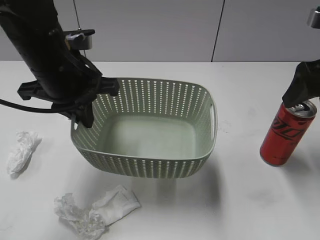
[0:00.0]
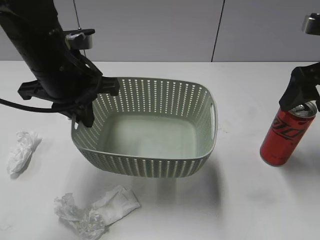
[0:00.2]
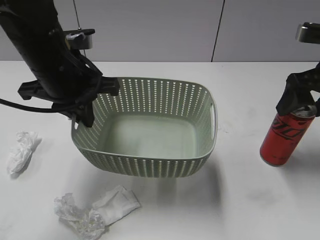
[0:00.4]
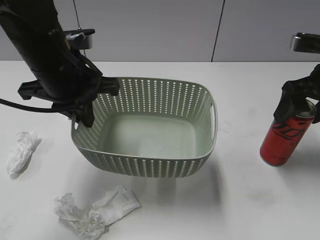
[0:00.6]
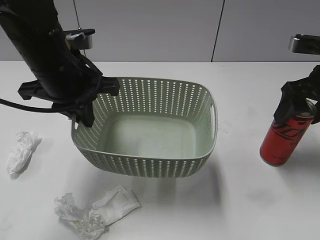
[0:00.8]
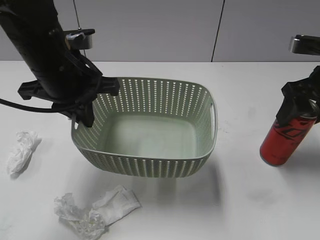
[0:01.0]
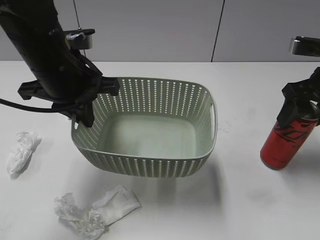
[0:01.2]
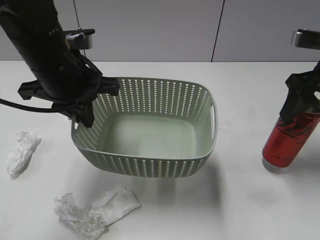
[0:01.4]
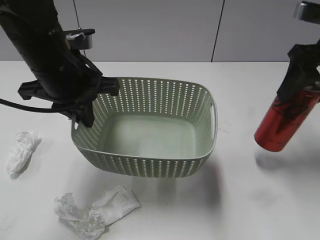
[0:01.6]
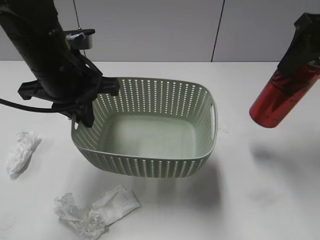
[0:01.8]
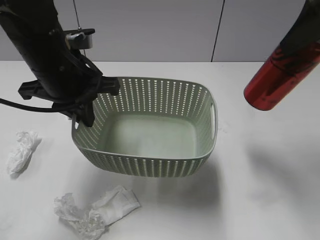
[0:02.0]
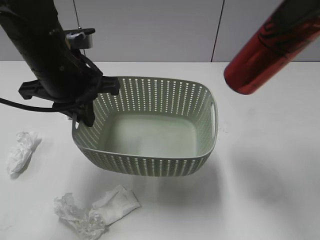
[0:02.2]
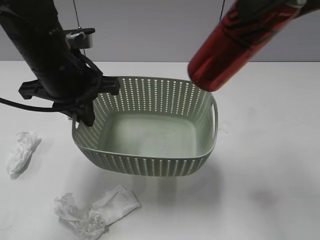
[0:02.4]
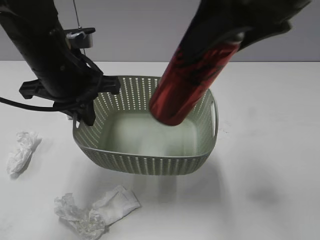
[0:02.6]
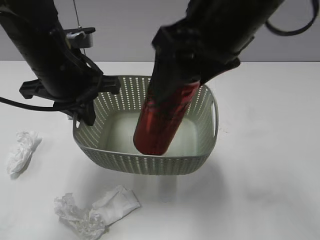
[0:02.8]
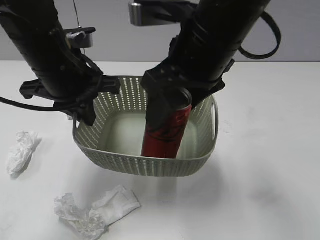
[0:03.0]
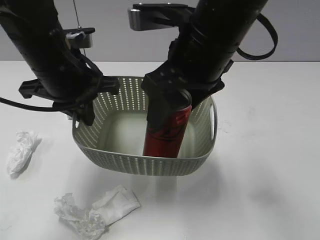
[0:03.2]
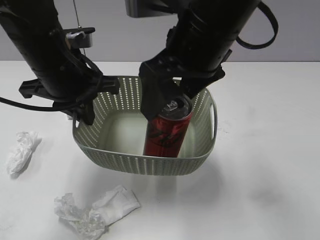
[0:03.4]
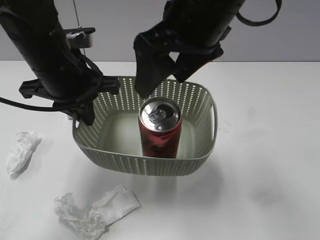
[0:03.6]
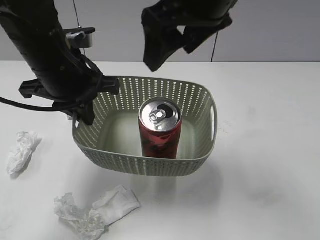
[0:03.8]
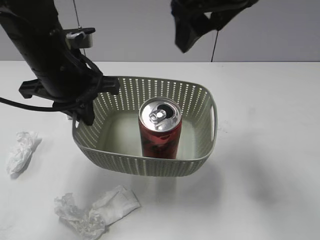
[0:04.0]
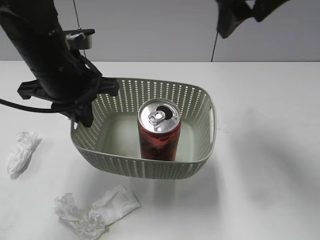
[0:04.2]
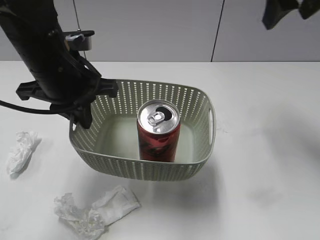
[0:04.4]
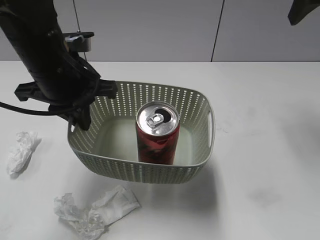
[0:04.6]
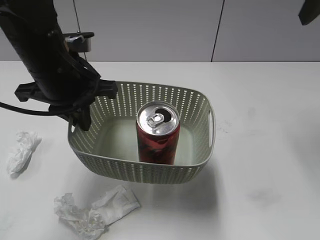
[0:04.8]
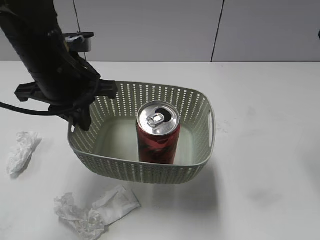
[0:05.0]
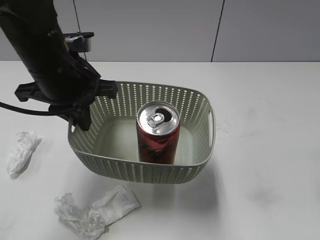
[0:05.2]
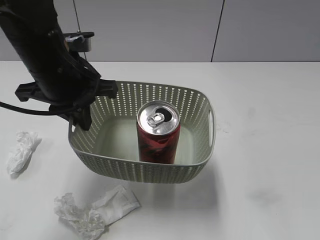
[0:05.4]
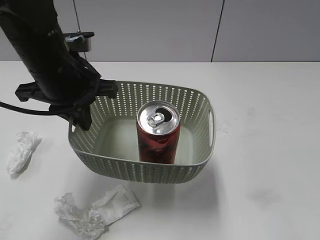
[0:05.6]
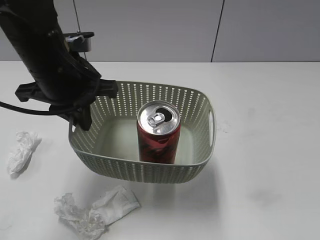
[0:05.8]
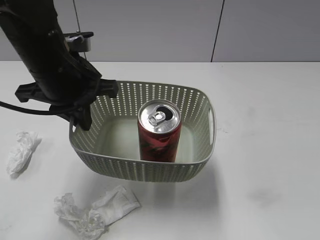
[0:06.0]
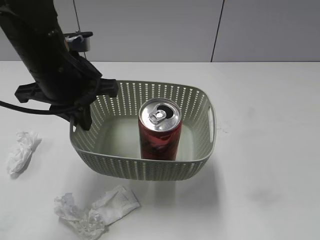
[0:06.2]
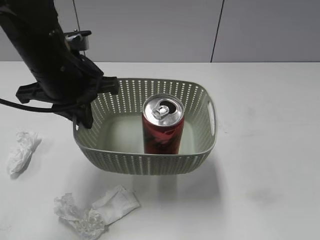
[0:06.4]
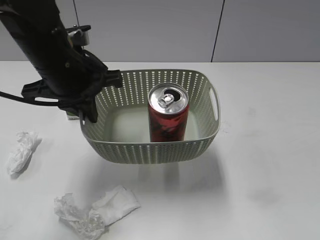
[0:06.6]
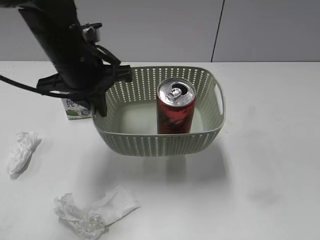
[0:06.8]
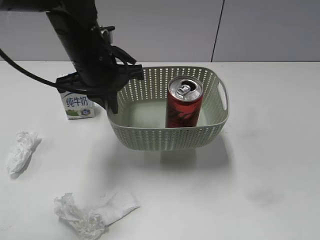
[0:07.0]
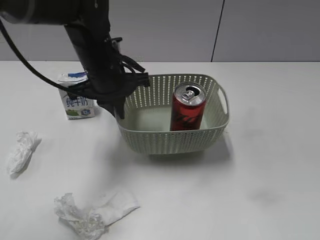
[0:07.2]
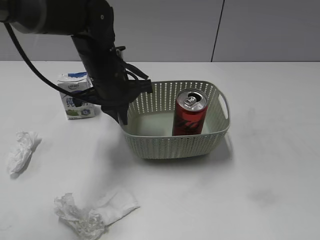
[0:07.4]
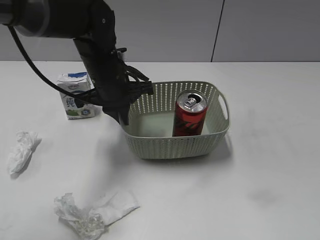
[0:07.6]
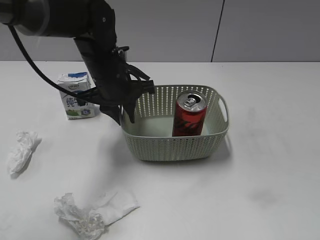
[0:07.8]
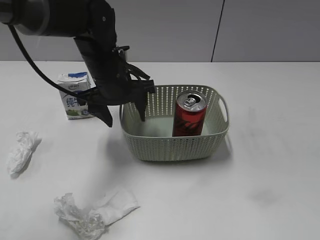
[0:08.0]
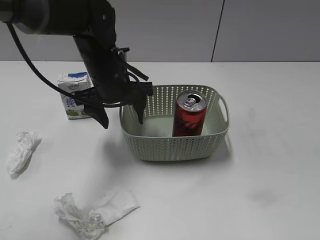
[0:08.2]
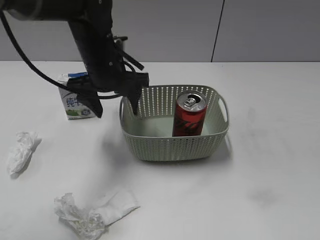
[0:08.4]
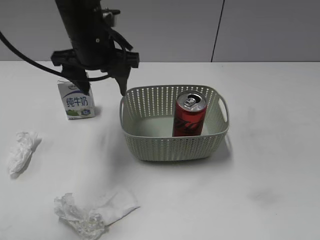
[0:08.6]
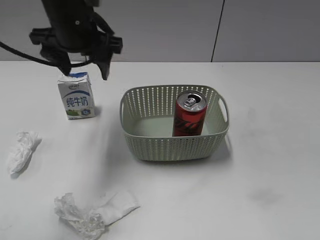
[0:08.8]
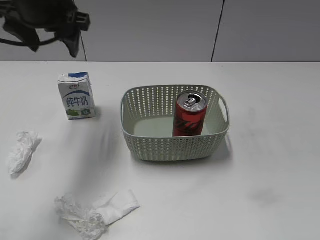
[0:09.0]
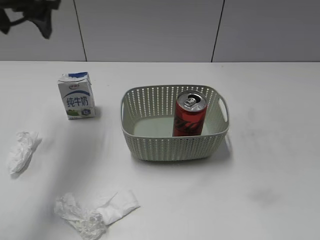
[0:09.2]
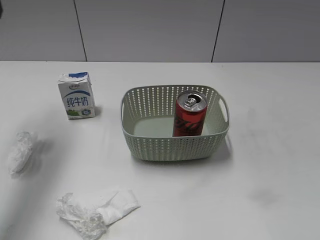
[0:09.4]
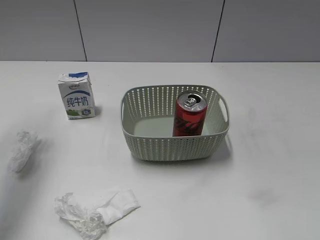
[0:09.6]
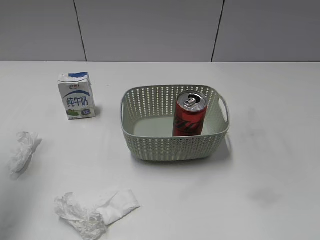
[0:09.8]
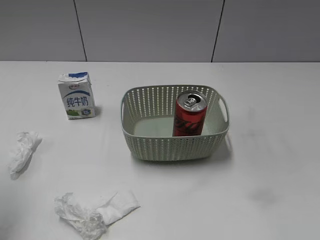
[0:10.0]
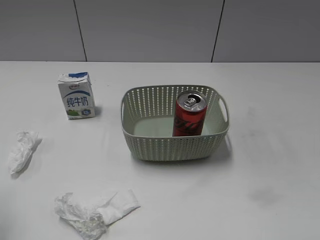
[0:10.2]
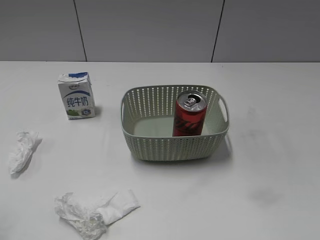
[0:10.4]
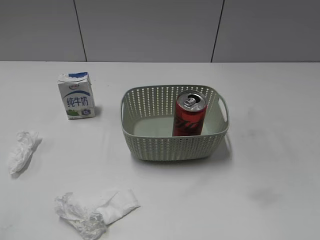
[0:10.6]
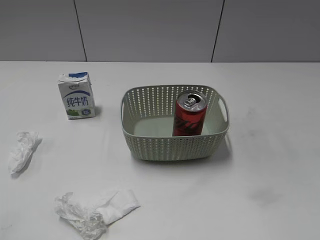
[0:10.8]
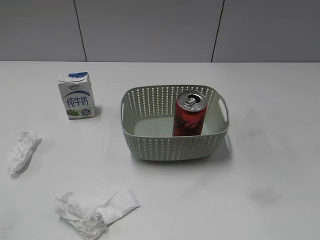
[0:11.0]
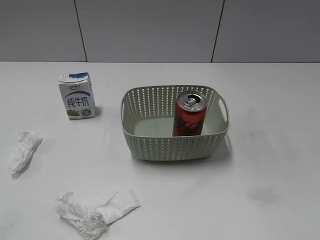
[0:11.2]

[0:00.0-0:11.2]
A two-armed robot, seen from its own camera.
Step, 0:01.2 to 0:03.4: Place the cola can in the basket with right gripper.
Step, 0:03.6 to 0:07.8: Place the basket on the table with left gripper.
0:00.0 to 0:01.6: The right gripper closes its fingers.
0:01.6 to 0:03.2: The right gripper shifts roughly 20 cm to the left.
0:03.2 to 0:04.8: The right gripper moves to the right and upward, about 20 cm, and opens up.
0:04.8 to 0:06.4: The right gripper moves backward, approximately 30 cm.
0:06.4 to 0:08.0: The left gripper shifts some 10 cm forward, downward and to the right, and opens.
0:08.0 to 0:09.6: The left gripper shifts approximately 30 cm to the left and upward.
0:09.6 to 0:11.2: The left gripper is displaced backward by some 30 cm.

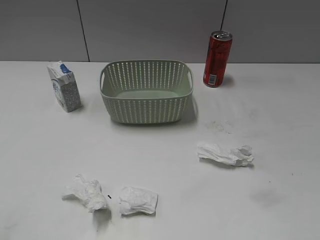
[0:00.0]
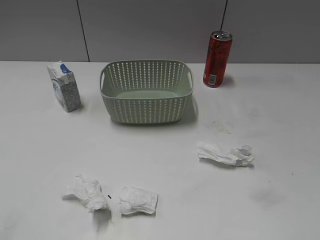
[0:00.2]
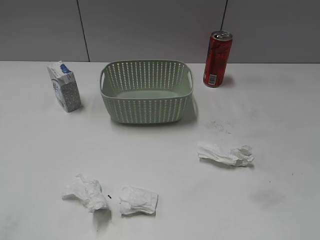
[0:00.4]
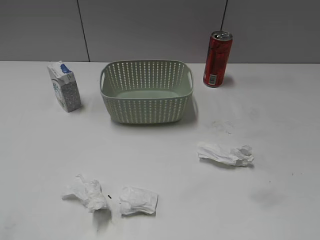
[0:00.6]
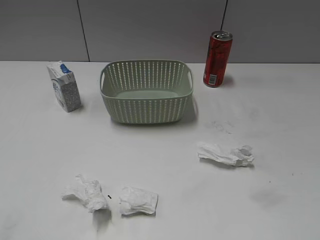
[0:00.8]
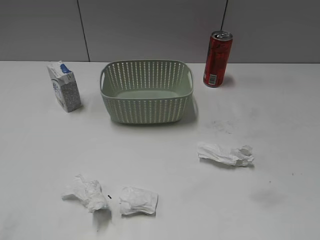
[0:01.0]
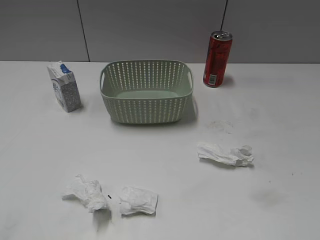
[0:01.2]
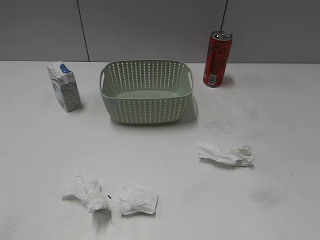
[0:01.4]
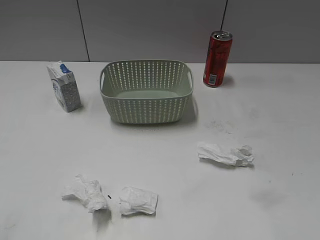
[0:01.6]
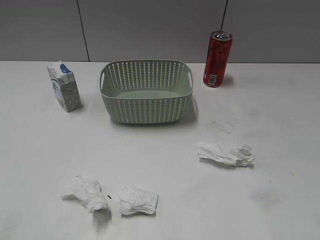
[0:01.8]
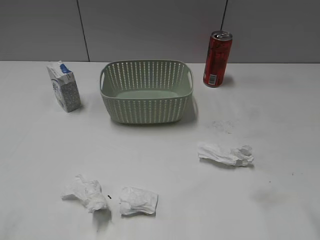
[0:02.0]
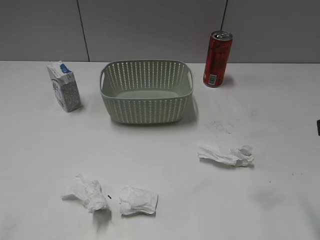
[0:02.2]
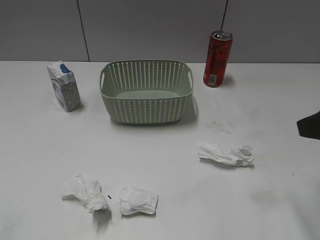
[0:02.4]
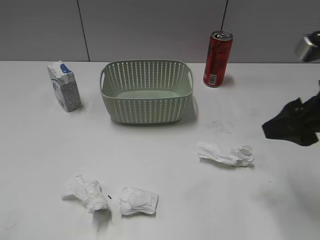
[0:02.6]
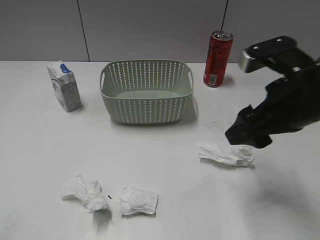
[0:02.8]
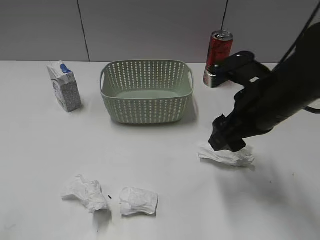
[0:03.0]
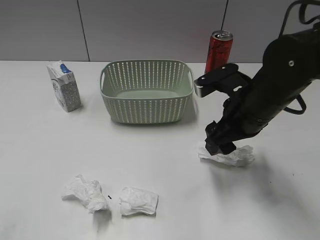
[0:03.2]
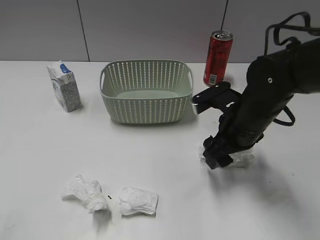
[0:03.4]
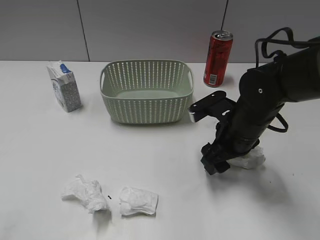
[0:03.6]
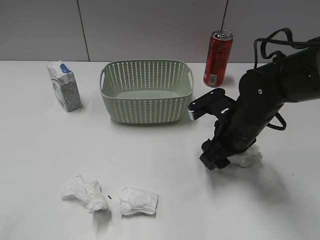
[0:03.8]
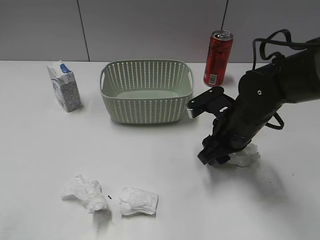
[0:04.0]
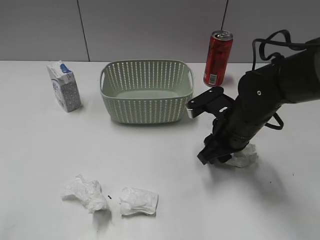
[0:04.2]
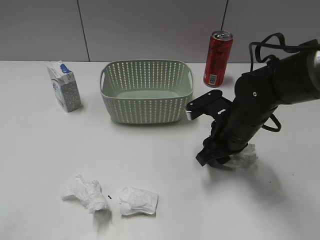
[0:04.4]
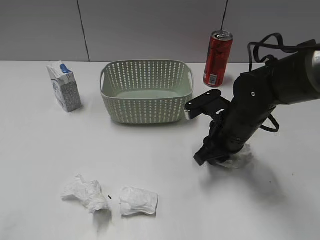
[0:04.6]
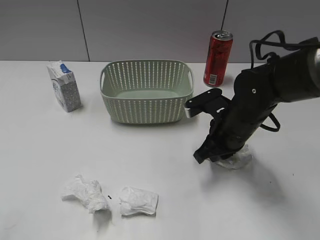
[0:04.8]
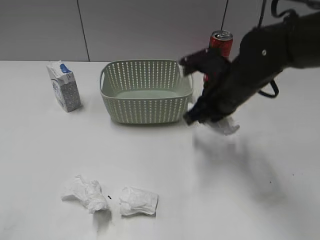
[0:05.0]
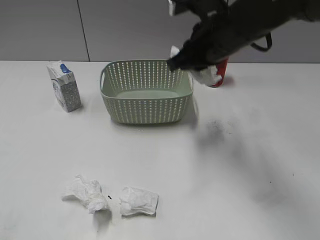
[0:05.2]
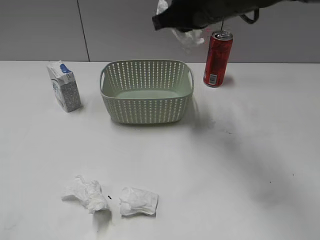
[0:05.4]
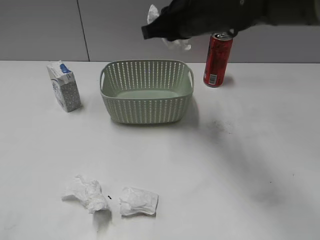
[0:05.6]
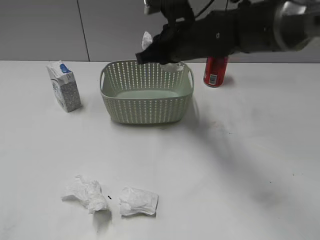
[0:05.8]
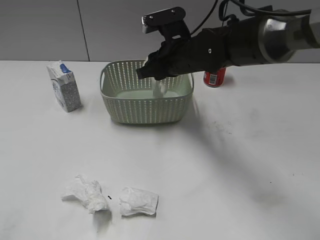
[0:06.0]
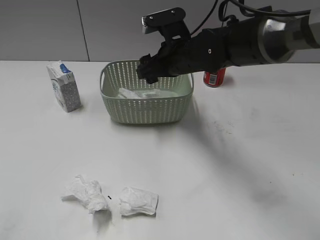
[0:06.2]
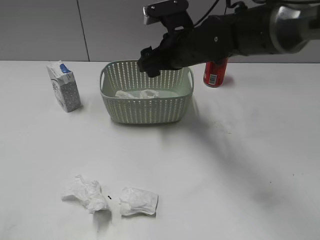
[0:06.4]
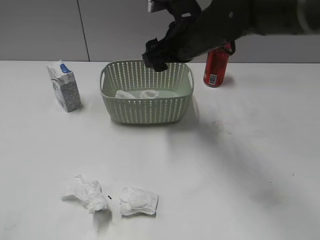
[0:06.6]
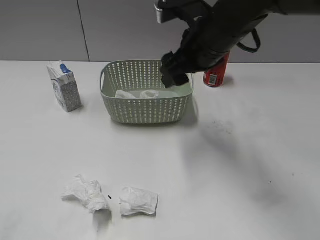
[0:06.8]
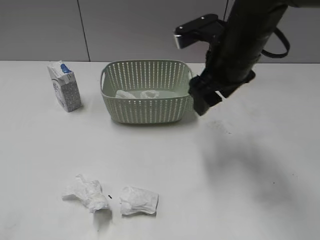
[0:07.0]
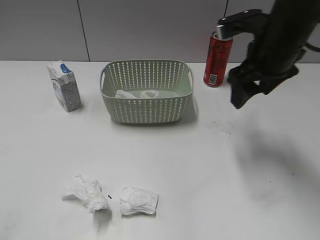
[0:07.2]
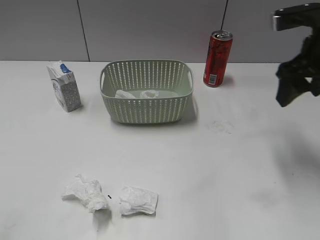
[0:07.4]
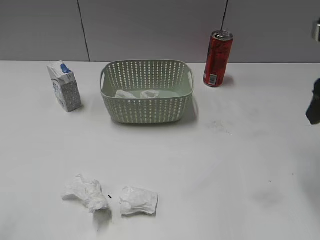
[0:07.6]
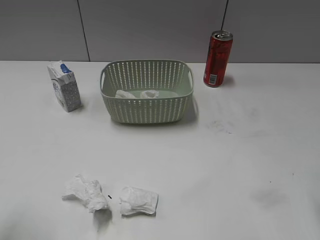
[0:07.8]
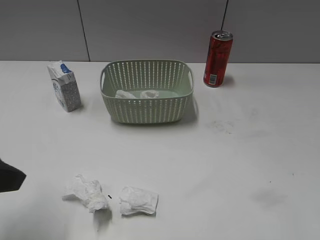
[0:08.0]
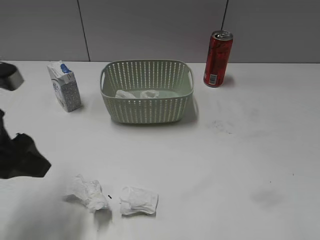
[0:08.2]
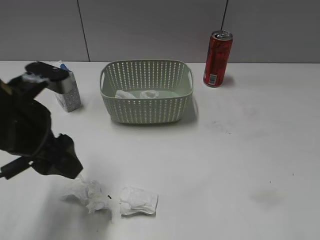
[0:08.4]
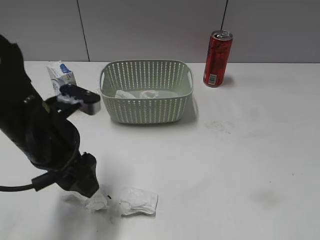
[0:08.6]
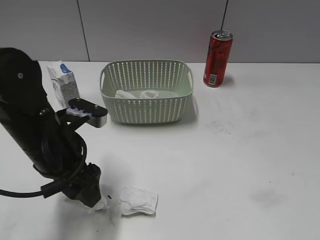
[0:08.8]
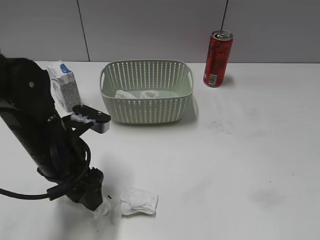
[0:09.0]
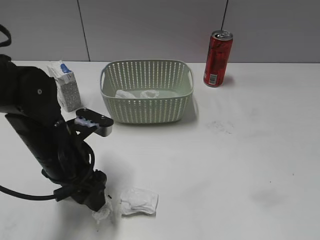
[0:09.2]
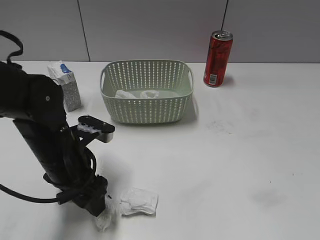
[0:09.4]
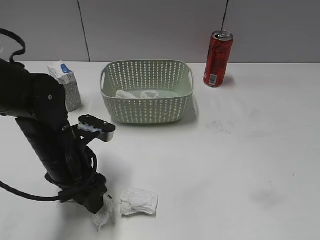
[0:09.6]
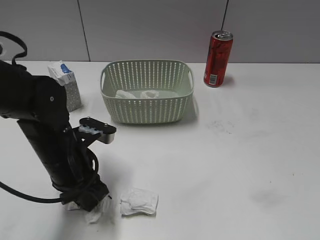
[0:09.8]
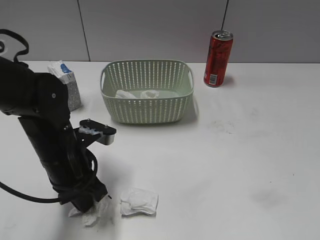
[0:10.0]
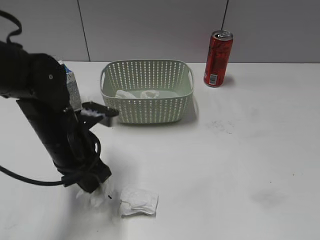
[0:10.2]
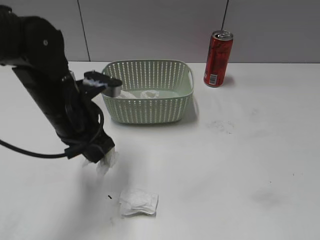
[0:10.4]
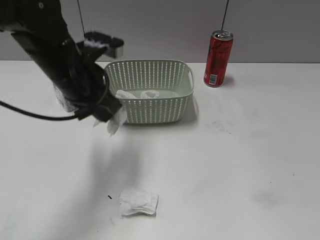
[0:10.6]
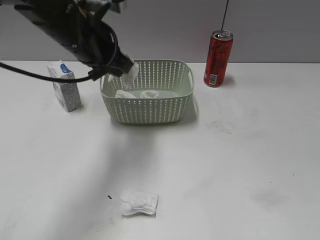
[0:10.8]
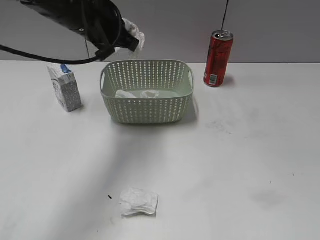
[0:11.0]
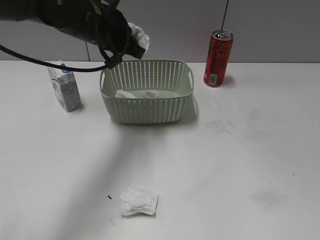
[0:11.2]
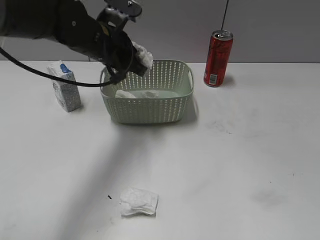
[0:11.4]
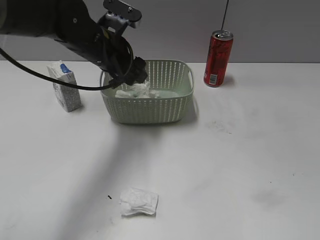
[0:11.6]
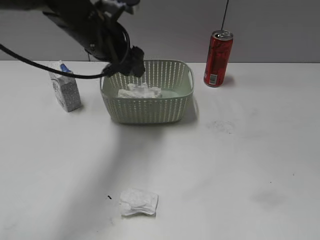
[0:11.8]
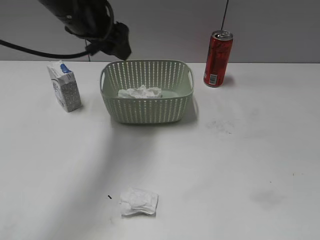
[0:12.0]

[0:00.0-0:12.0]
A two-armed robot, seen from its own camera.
Step, 0:02.2 to 0:04.6: Grasp the waste paper with right gripper.
Step, 0:04.8 to 0:06.2: Place the waste paper in the basket with right gripper.
Step, 0:06.4 to 0:10.0: Grasp the waste paper with left gripper.
Step, 0:10.2 to 0:11.8: Place the waste paper in the basket with left gripper.
0:01.6 to 0:03.0: The right gripper is displaced forward, to the left and downward by roughly 25 cm.
0:03.0 to 0:04.4: The right gripper travels downward by about 10 cm, and closes its fingers.
0:04.4 to 0:06.0: The right gripper moves to the left, forward and upward, approximately 15 cm, and closes, then opens again.
0:06.0 to 0:07.6: The right gripper heads to the right, backward and upward, covering approximately 30 cm, and opens up; the left gripper travels forward by some 5 cm.
0:07.6 to 0:09.0: The left gripper moves forward, to the right and downward, about 25 cm. Meanwhile the right gripper travels backward by approximately 25 cm.
0:09.0 to 0:10.4: The left gripper changes place by about 5 cm, and closes.
0:10.4 to 0:12.0: The left gripper shifts some 15 cm upward and forward, and opens up.
